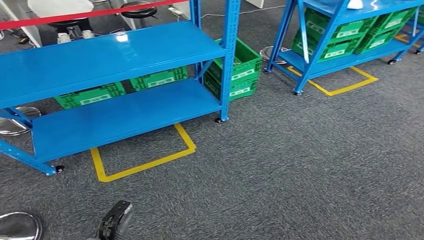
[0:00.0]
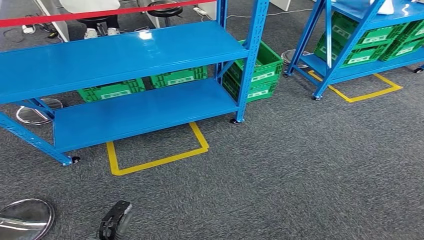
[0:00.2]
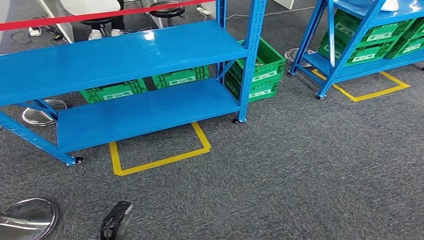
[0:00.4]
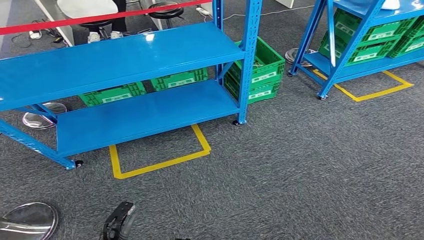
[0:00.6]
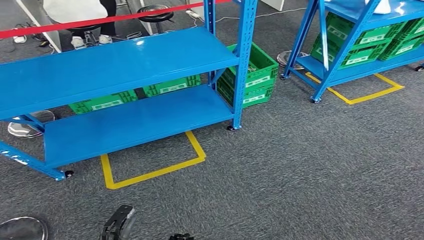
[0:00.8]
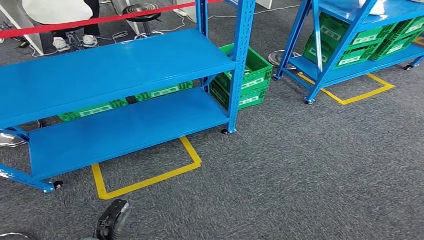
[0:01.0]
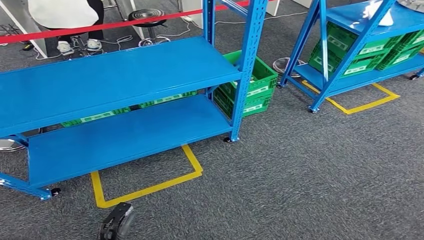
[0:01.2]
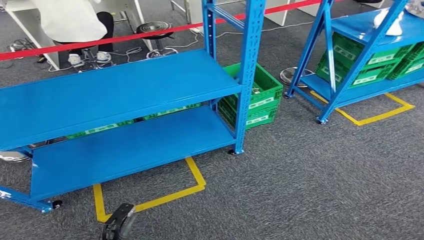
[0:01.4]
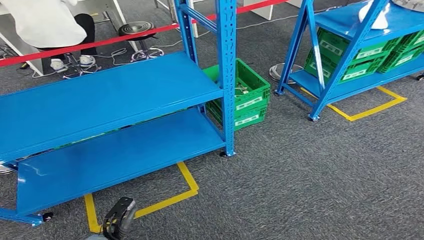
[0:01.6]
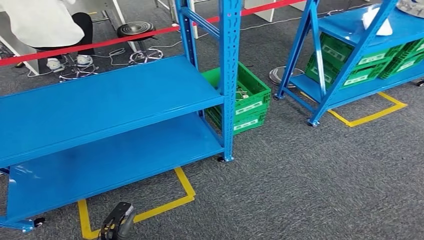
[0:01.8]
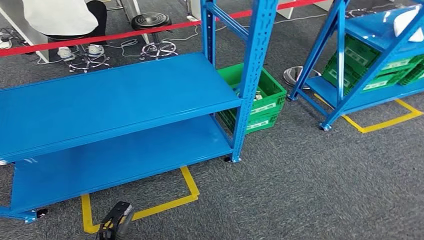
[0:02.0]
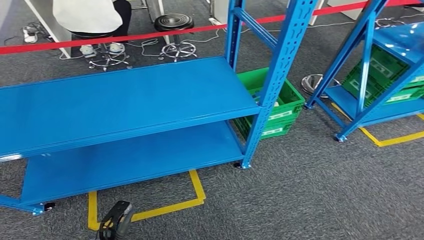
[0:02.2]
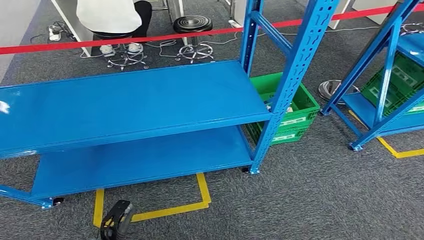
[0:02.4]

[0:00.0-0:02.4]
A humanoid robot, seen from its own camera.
Step, 0:00.0 to 0:02.2: Return to the initial position at the workbench.
